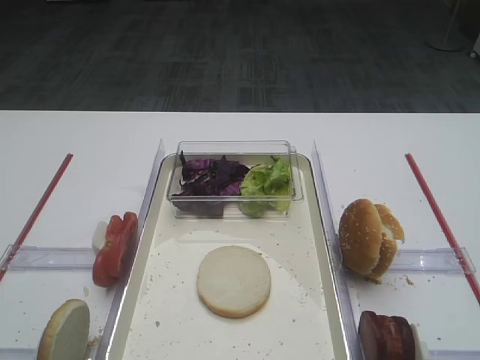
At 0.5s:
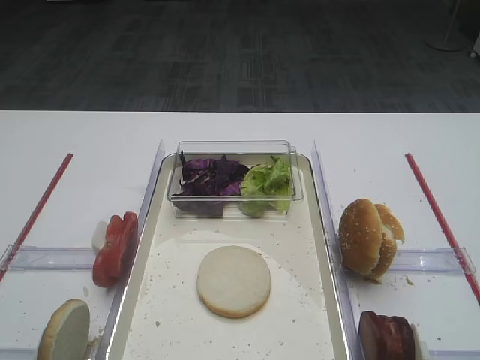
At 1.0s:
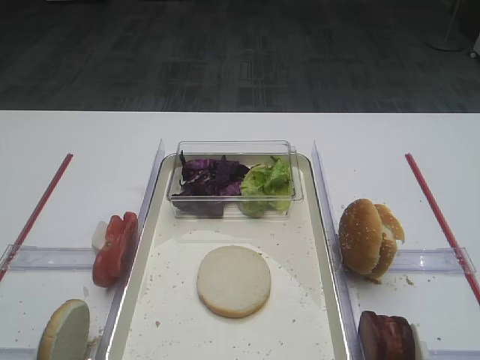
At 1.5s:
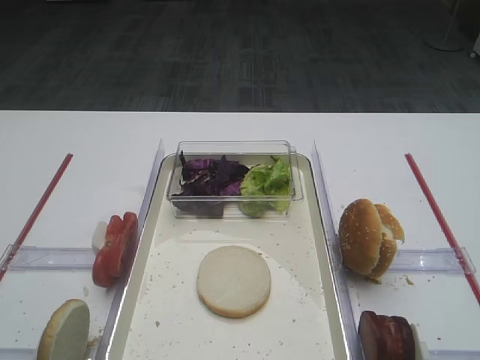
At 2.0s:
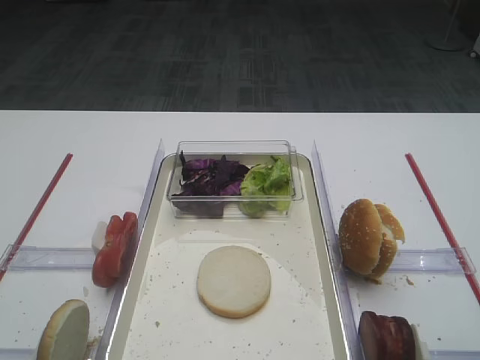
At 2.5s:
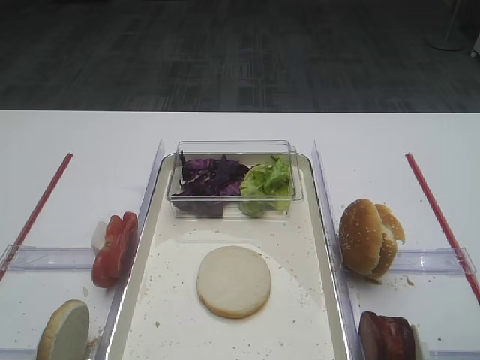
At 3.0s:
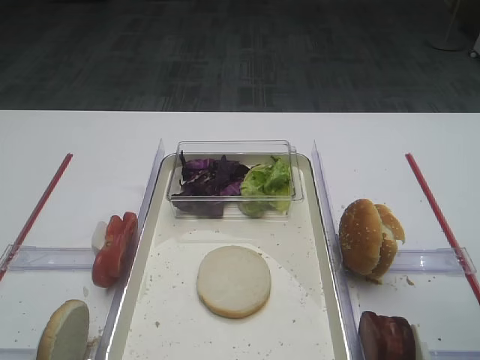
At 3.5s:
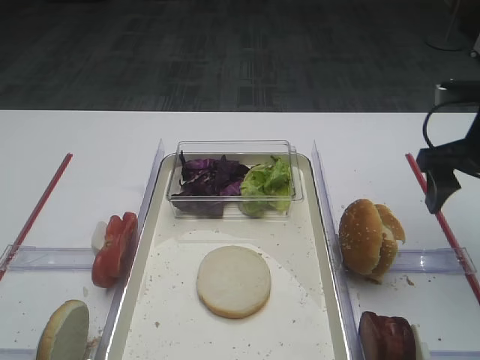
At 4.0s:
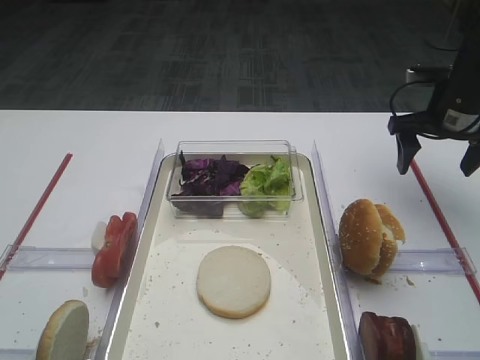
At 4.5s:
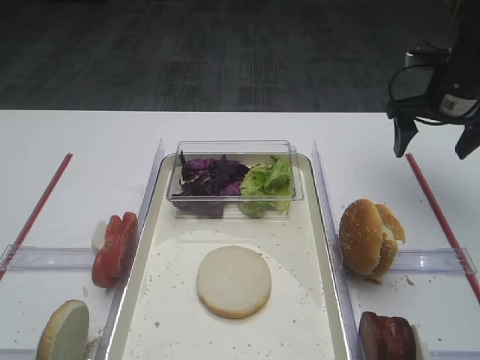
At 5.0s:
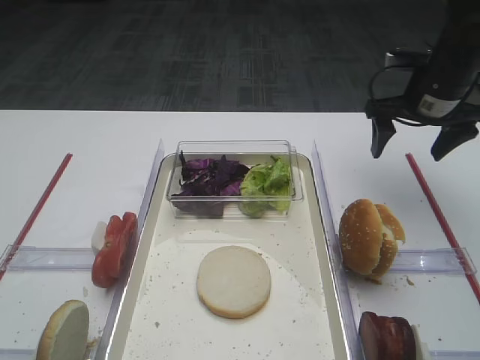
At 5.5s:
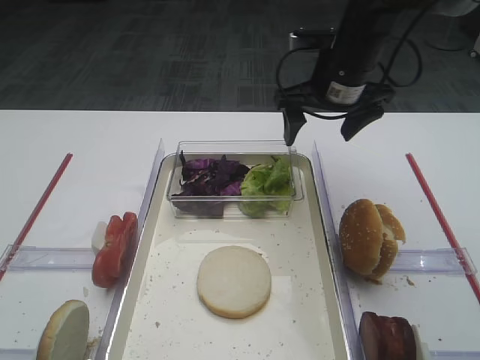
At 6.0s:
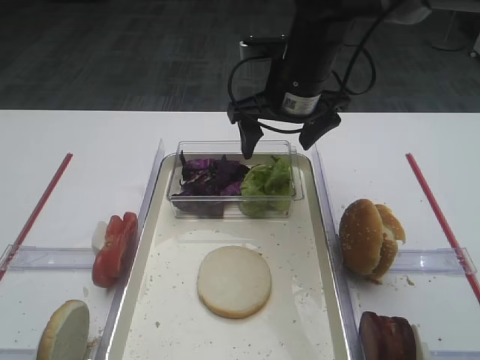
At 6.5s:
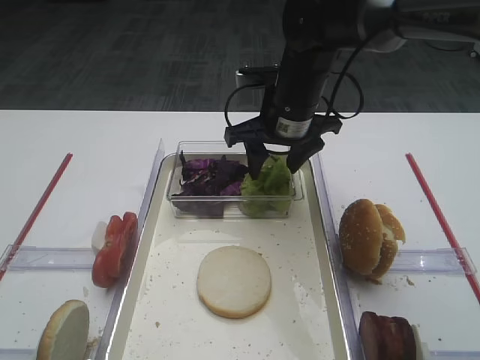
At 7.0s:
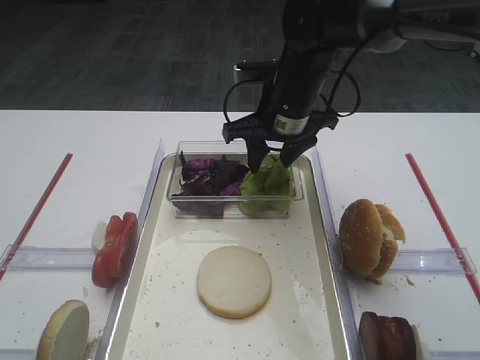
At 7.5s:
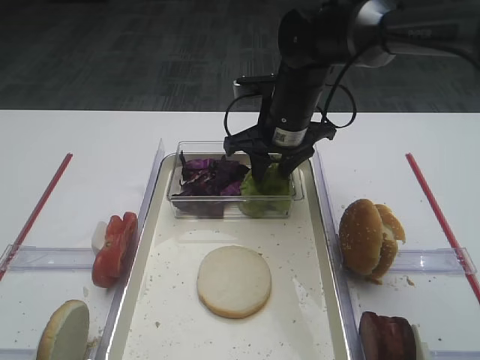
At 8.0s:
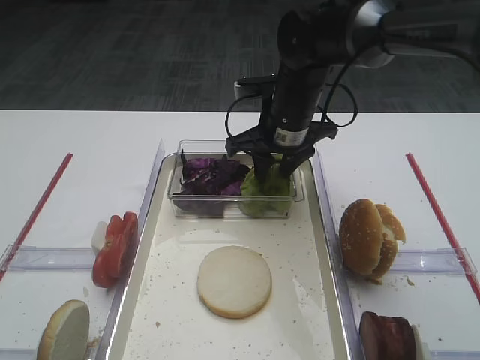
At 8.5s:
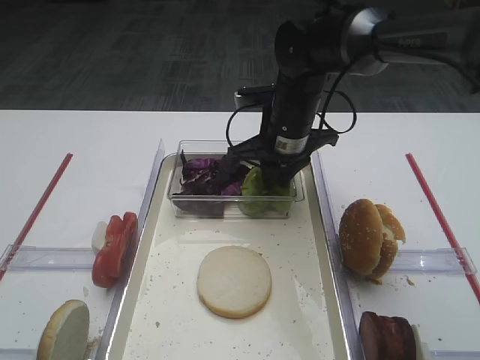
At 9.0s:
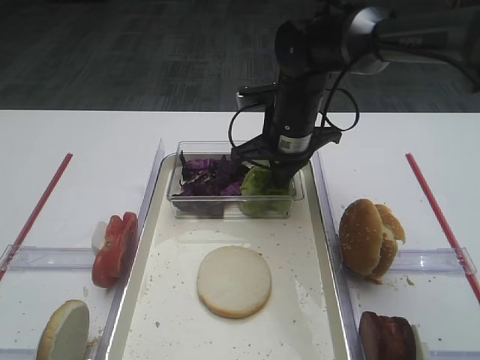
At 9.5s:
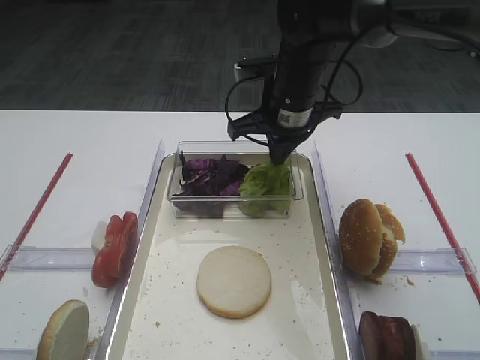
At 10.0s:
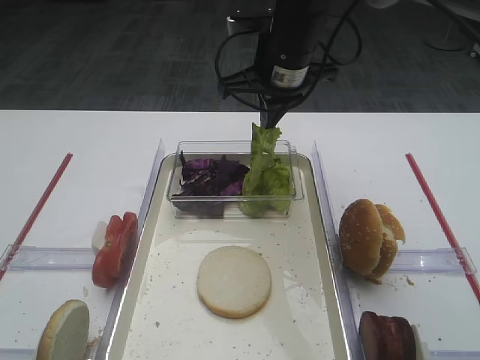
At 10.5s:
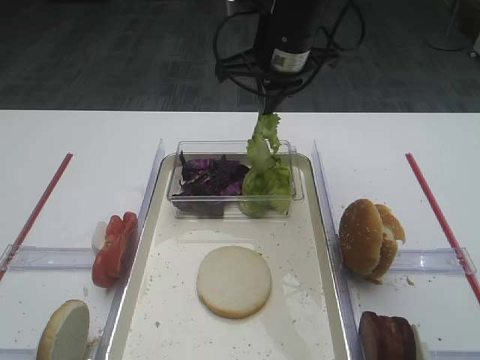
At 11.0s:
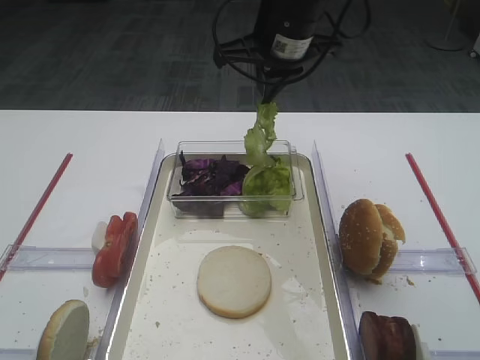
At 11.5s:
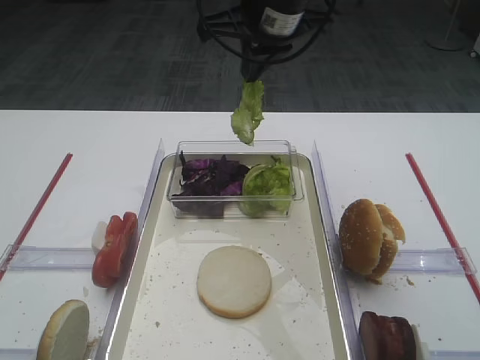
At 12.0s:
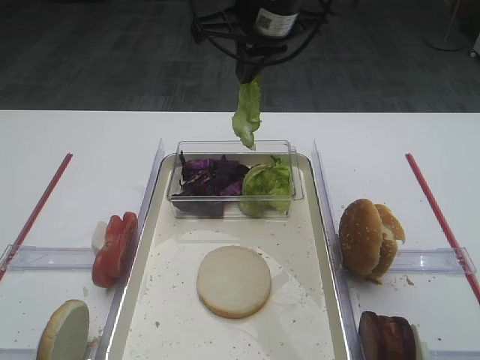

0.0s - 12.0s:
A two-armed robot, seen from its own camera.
Step, 0.0s - 10.5s: Pick up the lettuce leaf with the right gripper.
2.0s - 4.0s: The right gripper travels forward by some 30 cm.
4.0s - 6.0s: The right gripper shifts approximately 20 cm to the left.
6.0s - 8.0s: The right gripper is displaced downward by roughly 5 cm, and closes.
8.0s - 10.0s: The right gripper shifts about 10 cm upward, and closes up.
10.0s - 12.0s: The right gripper is displaced upward by approximately 5 cm.

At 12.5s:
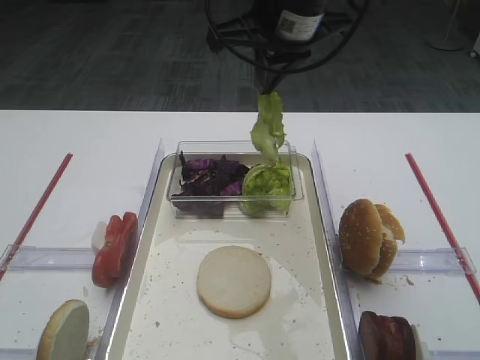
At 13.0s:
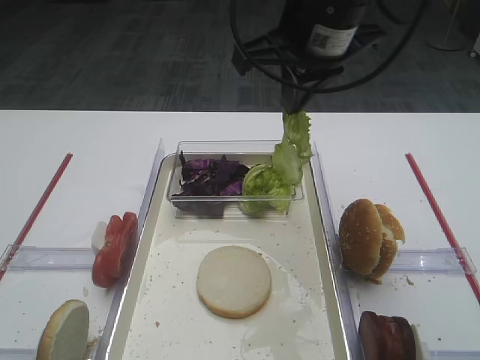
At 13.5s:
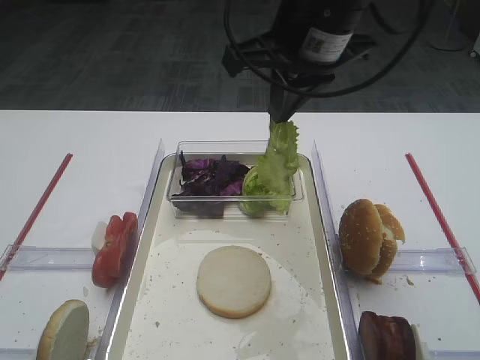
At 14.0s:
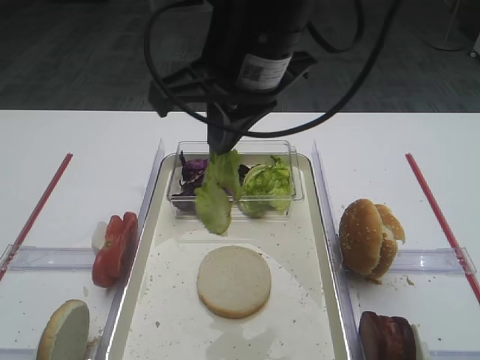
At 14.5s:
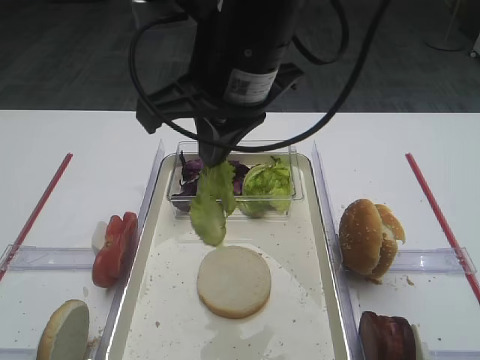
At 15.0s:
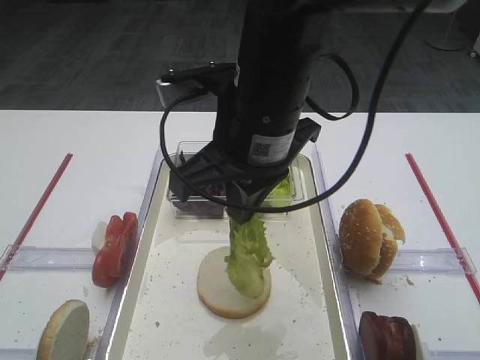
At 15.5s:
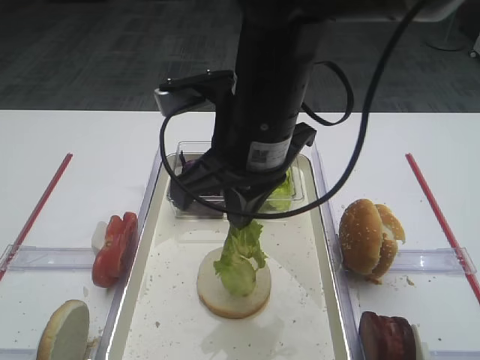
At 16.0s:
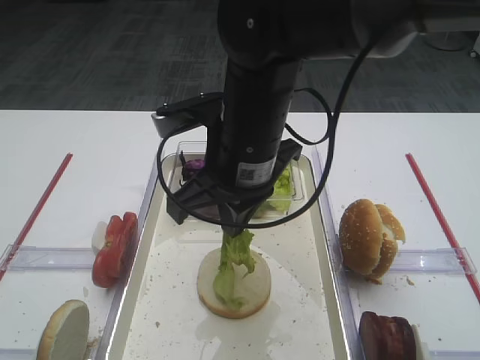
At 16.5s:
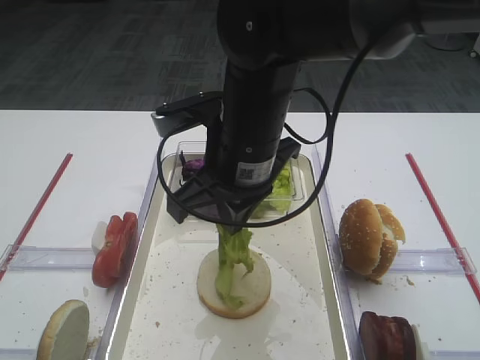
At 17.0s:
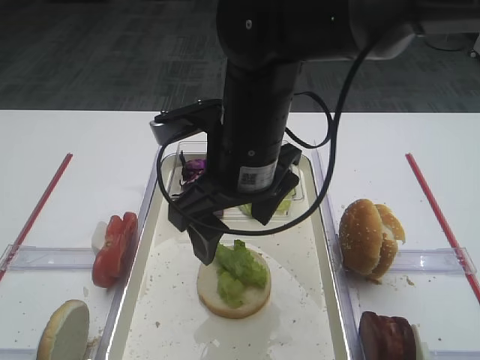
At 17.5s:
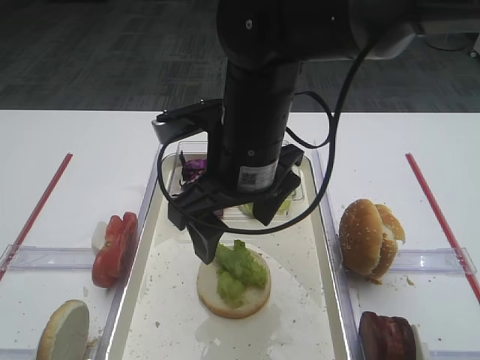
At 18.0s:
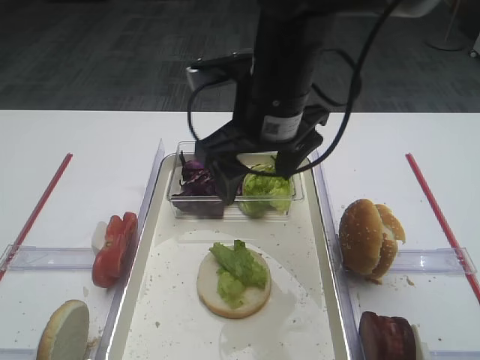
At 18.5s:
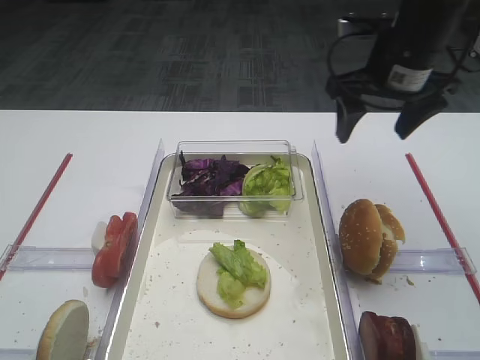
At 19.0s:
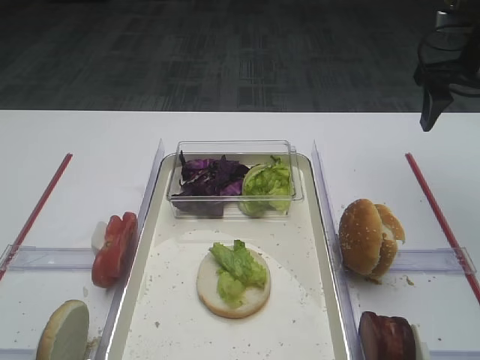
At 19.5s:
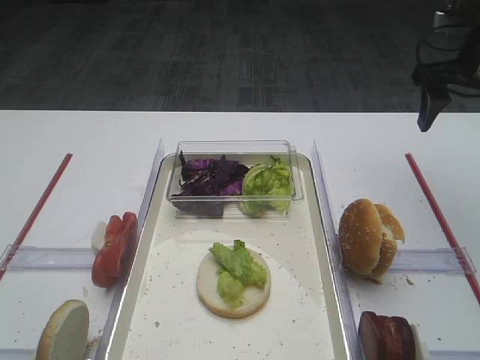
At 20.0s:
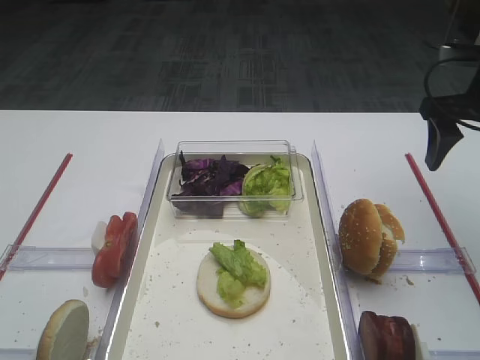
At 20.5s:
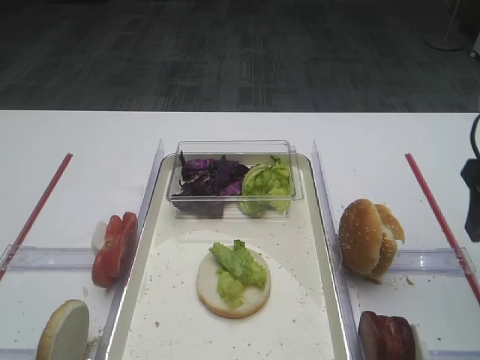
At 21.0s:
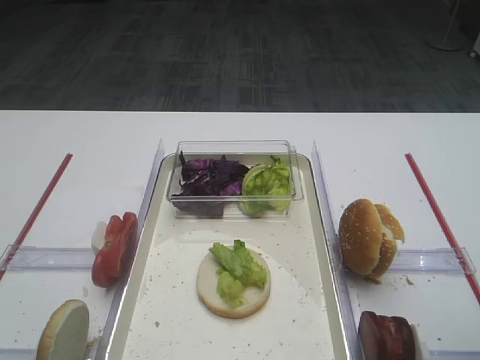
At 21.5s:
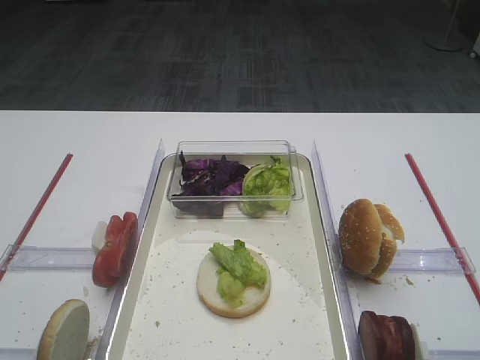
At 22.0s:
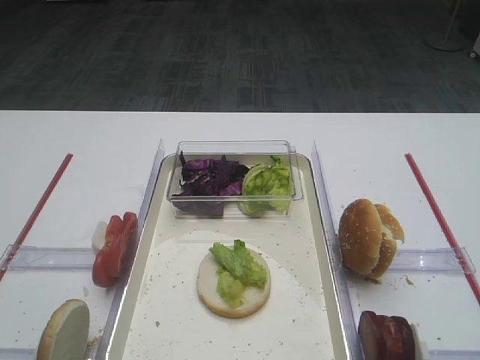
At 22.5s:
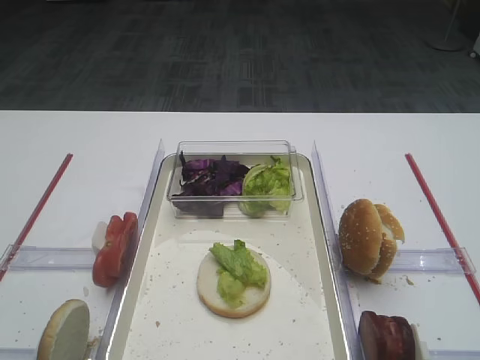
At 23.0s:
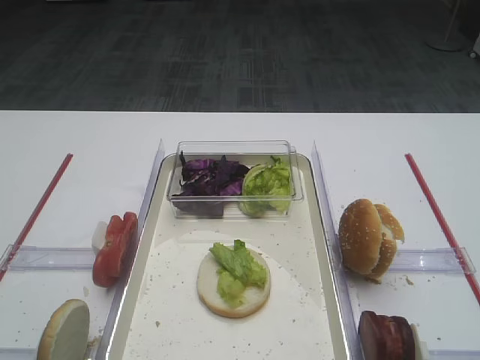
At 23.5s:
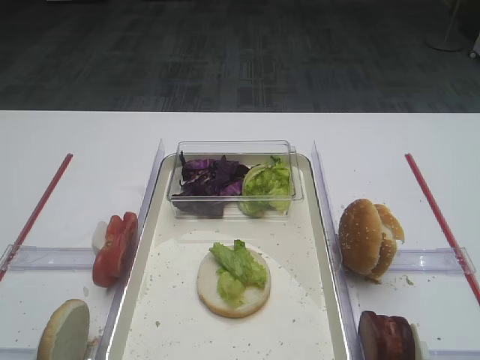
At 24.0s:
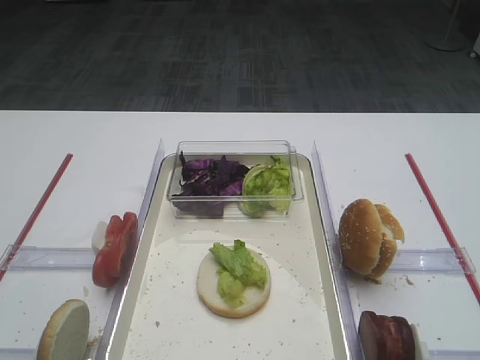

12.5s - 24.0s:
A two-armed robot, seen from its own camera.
Step, 12.5s - 16.5s: Place the lettuce leaf on the bread slice with the right gripper.
12.5s - 14.5s: The right gripper heads backward and to the left, covering roughly 10 cm.
14.5s - 16.5s: The right gripper heads downward, covering approximately 10 cm.
16.5s - 18.5s: The right gripper goes roughly 20 cm to the right and forward, and opens up.
18.5s - 20.0s: The right gripper shifts roughly 10 cm to the right.
20.0s - 22.0s: The right gripper goes approximately 35 cm backward.

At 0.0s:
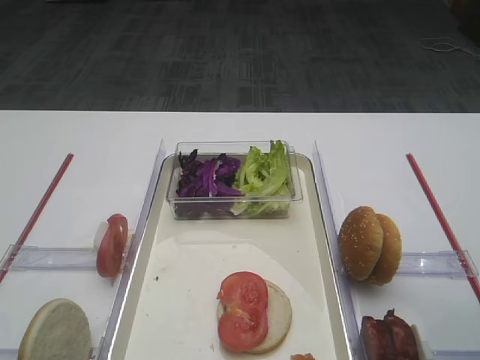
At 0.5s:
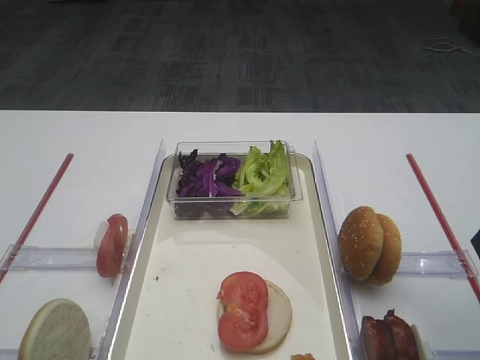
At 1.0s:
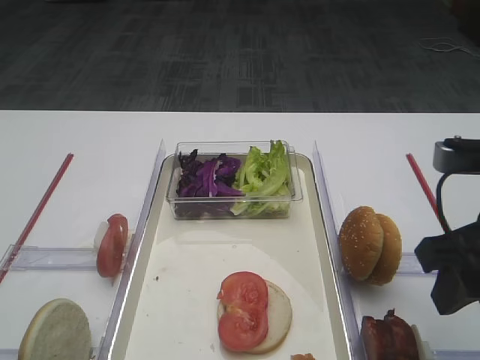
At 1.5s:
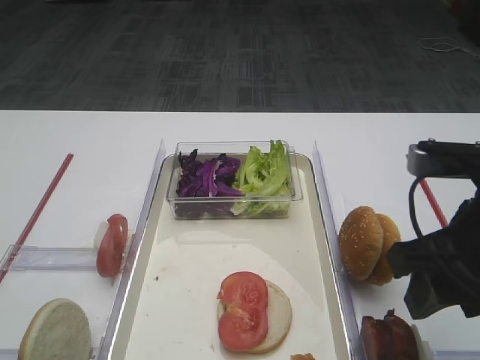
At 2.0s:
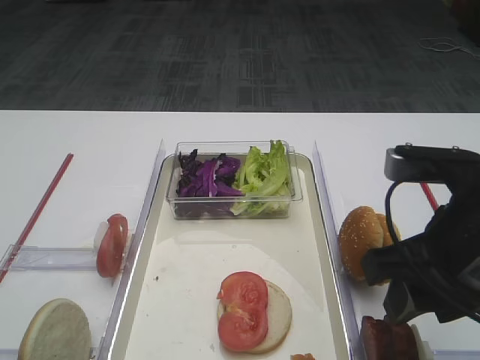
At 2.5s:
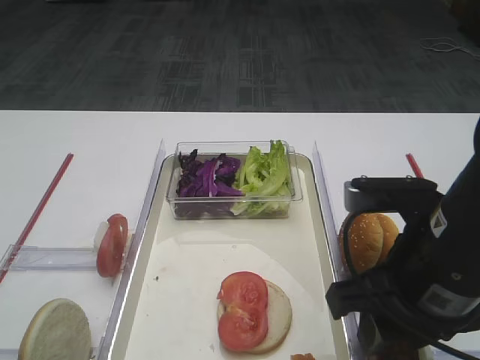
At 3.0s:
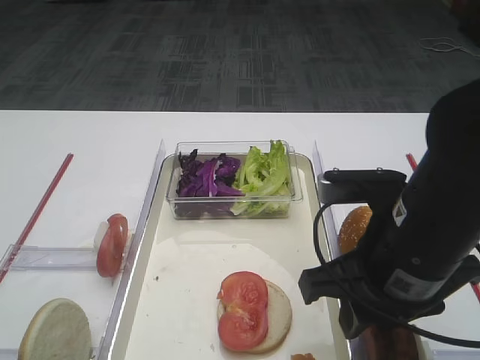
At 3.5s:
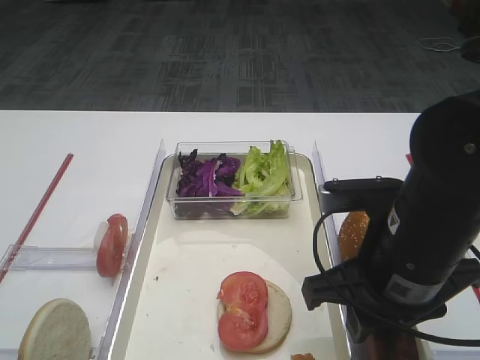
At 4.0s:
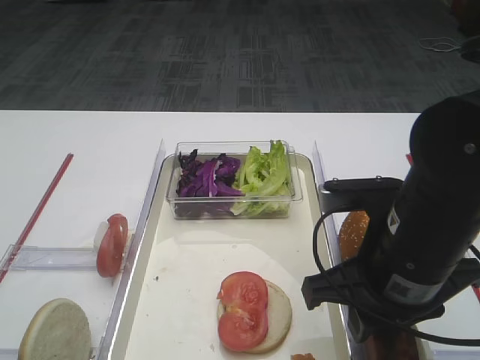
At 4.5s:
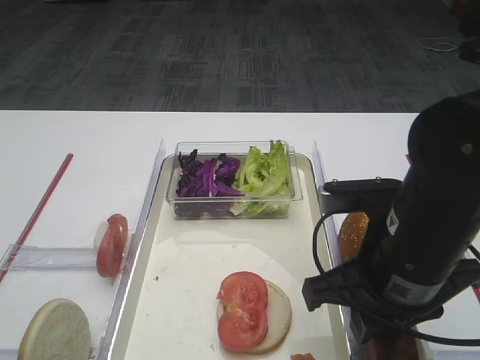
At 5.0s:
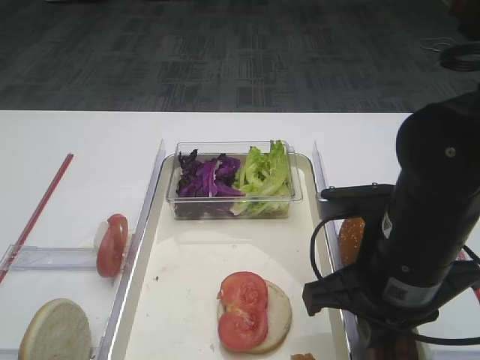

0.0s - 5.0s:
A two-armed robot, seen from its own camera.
0.0s - 2.5s: The right gripper goes about 10 cm to the left.
2.5s - 5.0s: The right gripper closes.
